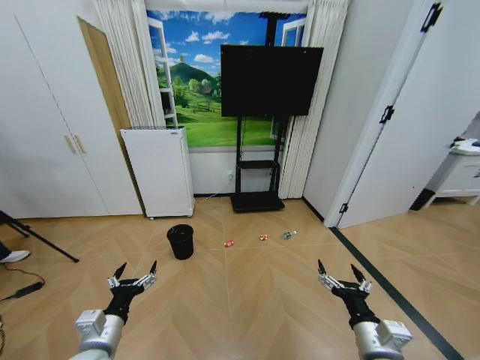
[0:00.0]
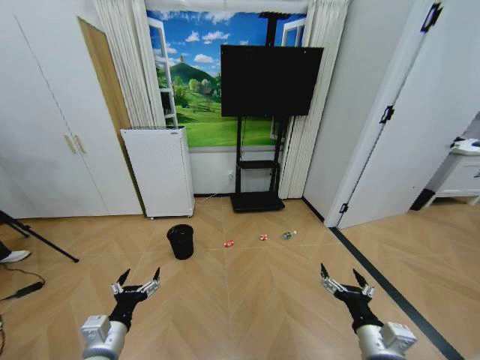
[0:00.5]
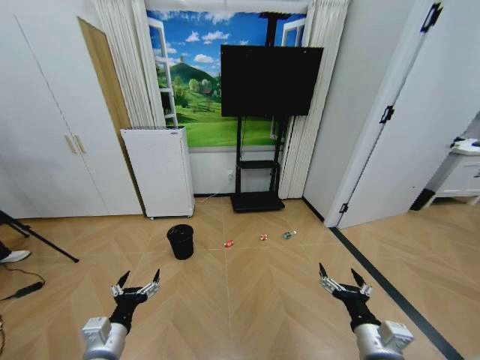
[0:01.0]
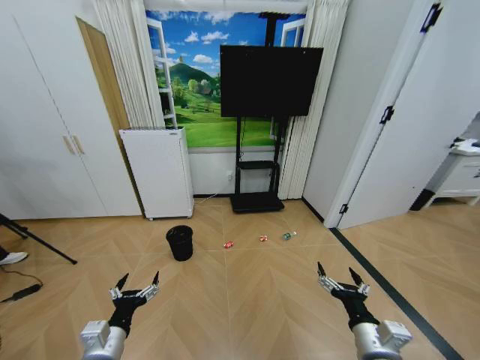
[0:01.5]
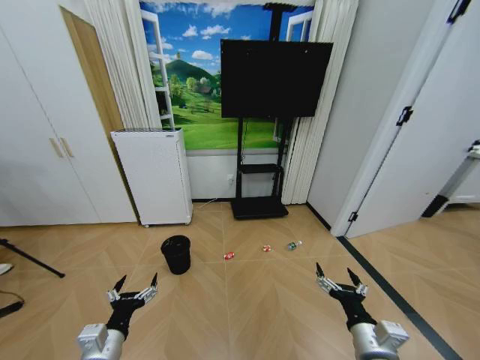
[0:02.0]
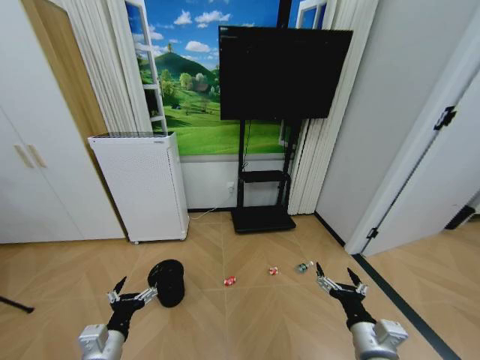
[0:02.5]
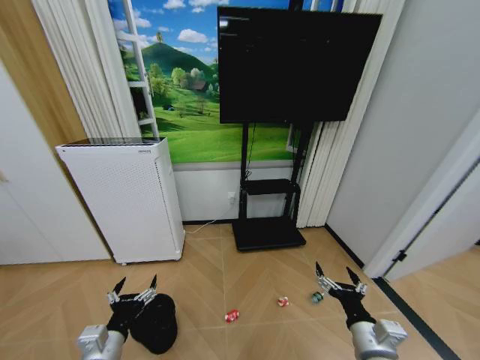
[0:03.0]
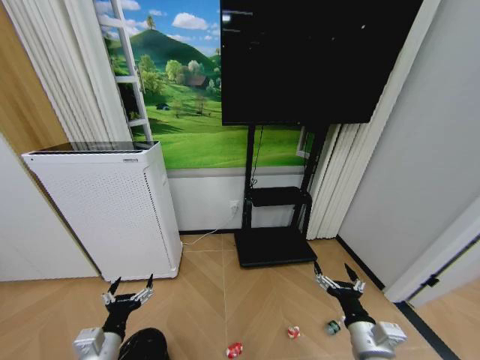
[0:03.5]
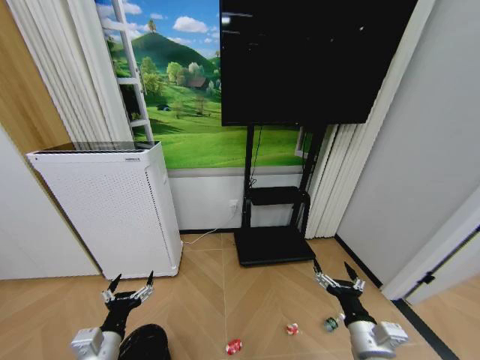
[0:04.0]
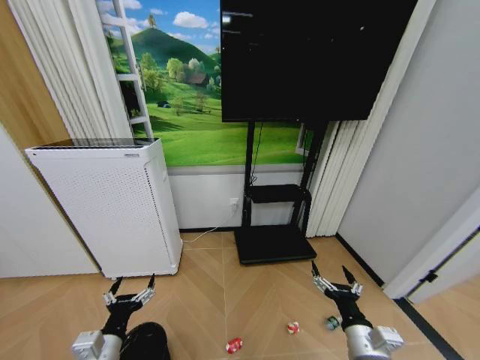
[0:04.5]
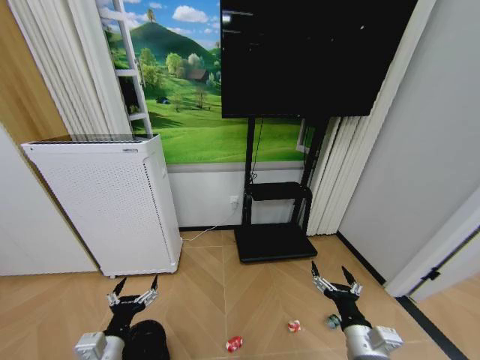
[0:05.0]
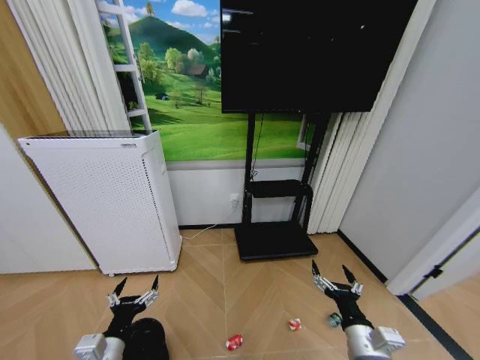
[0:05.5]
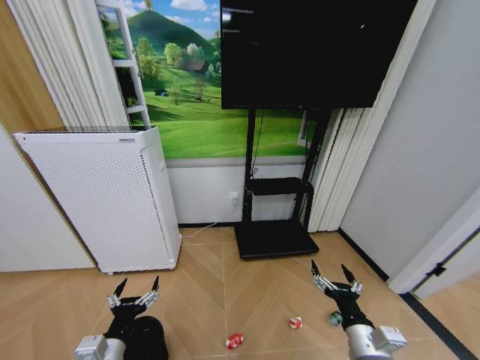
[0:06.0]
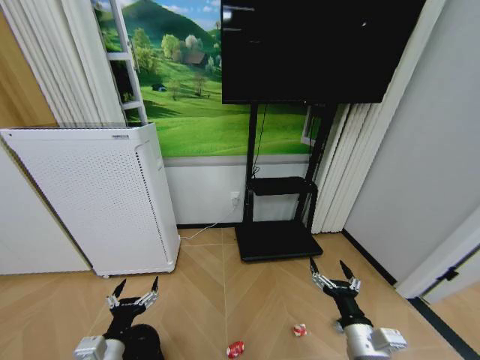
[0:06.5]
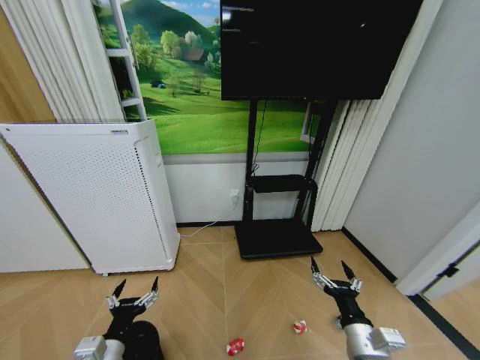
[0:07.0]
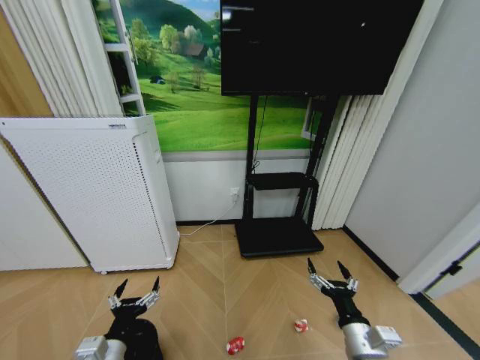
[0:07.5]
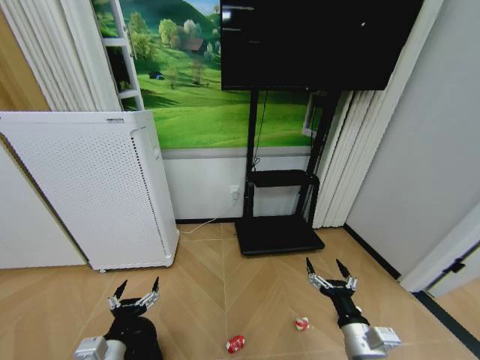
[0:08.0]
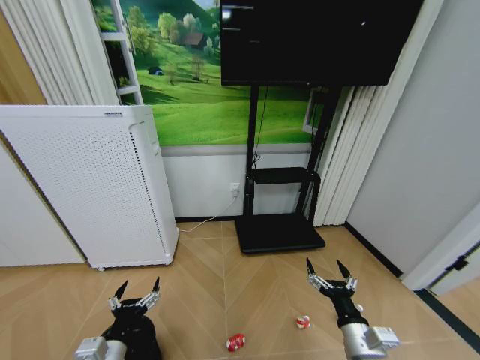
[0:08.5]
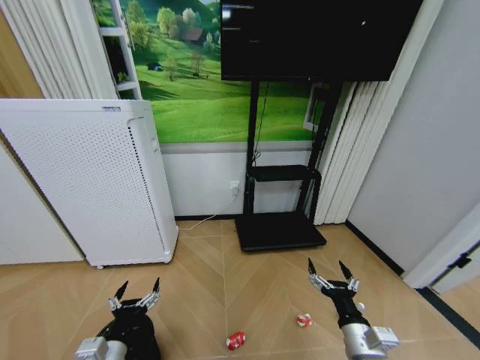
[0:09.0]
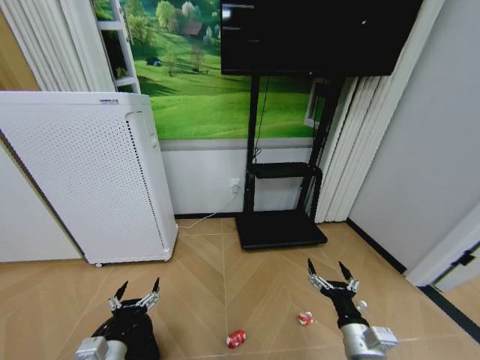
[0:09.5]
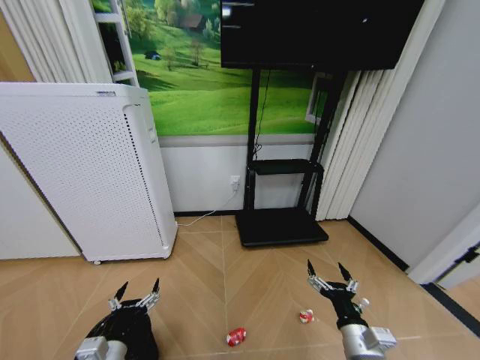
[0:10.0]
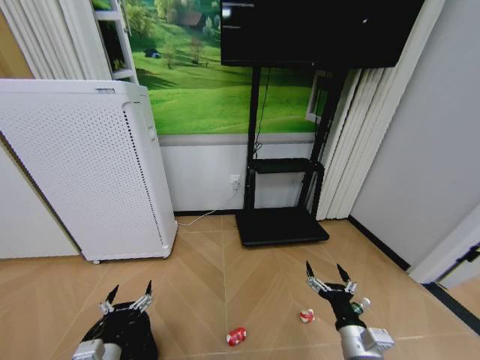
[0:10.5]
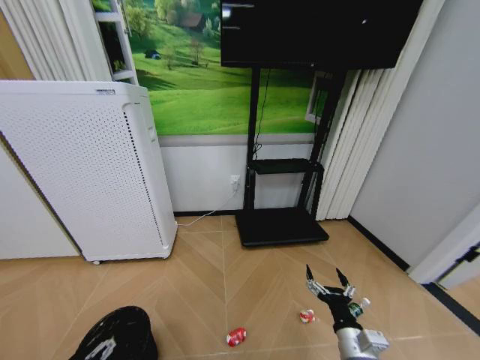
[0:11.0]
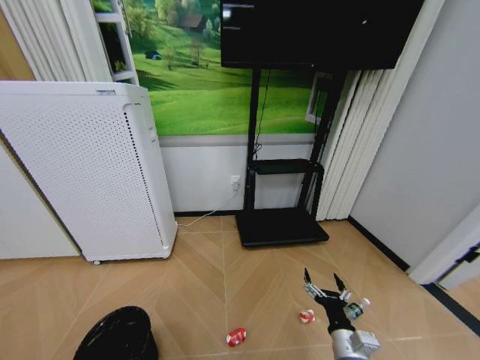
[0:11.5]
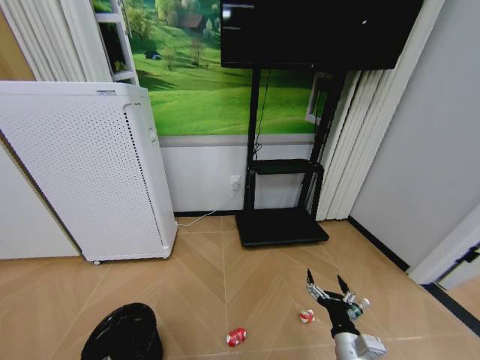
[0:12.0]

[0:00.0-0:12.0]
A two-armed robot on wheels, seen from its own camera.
Task of the whole recording: Pick up the trash bin and place the garbage on the floor into it.
0:04.0 to 0:06.0: The grippers stay close to where they were, moving slightly.
0:08.0 to 0:10.0: Neither gripper changes place.
0:10.0 to 0:12.0: The left gripper is displaced to the left, downward and backward by approximately 15 cm.

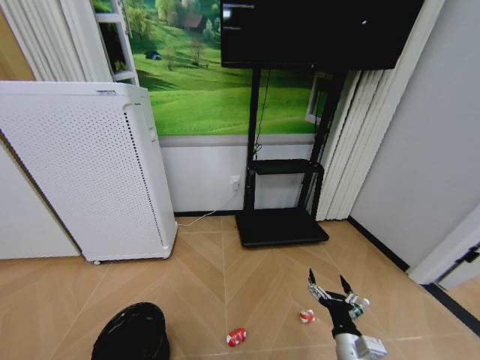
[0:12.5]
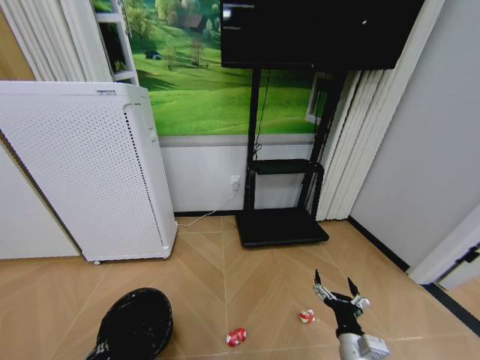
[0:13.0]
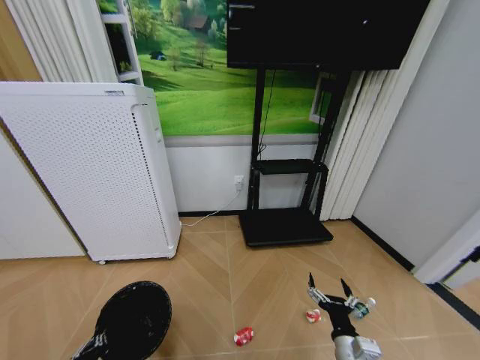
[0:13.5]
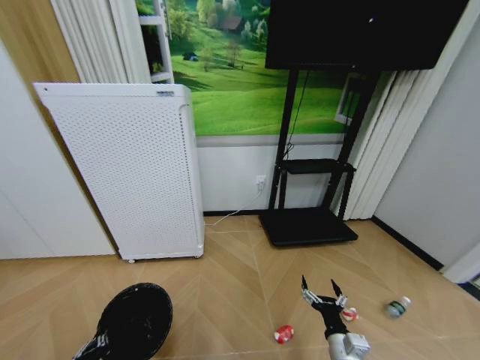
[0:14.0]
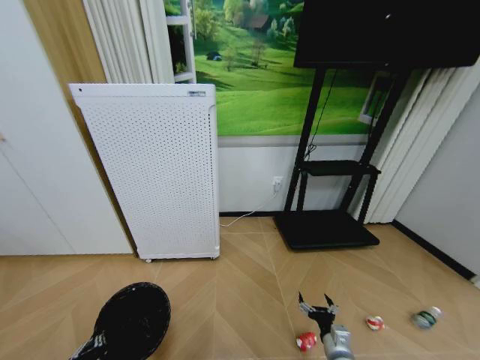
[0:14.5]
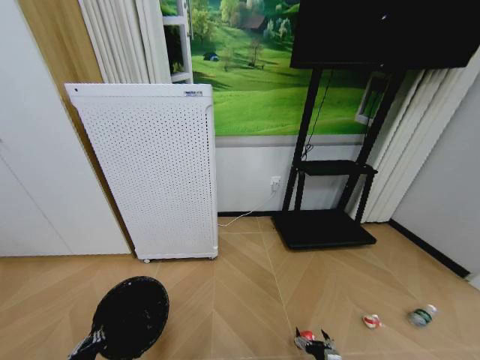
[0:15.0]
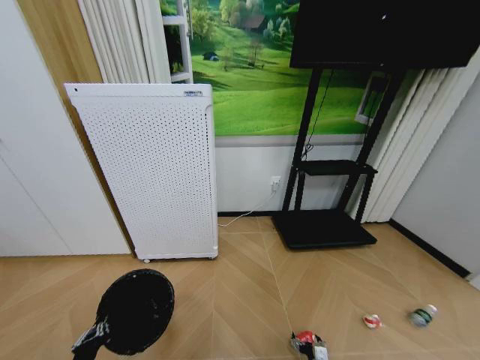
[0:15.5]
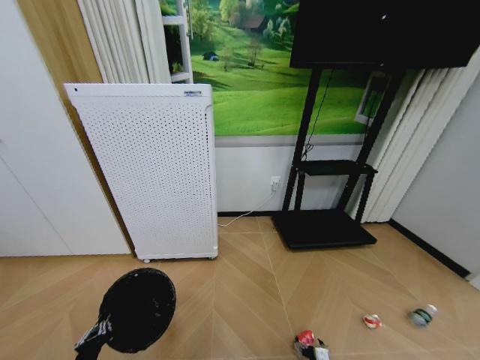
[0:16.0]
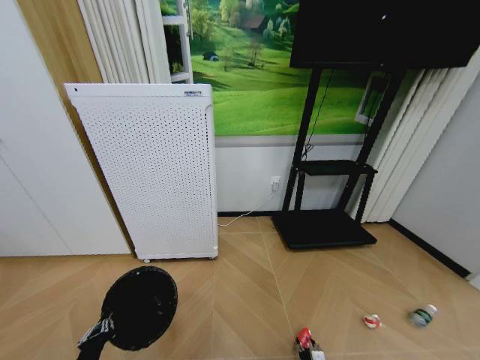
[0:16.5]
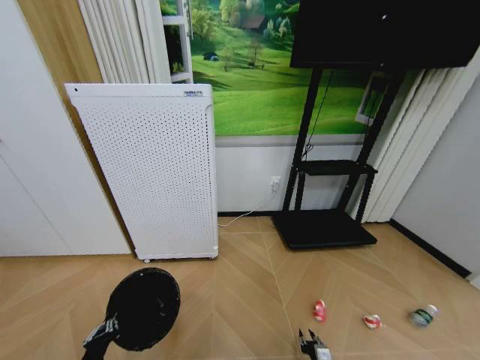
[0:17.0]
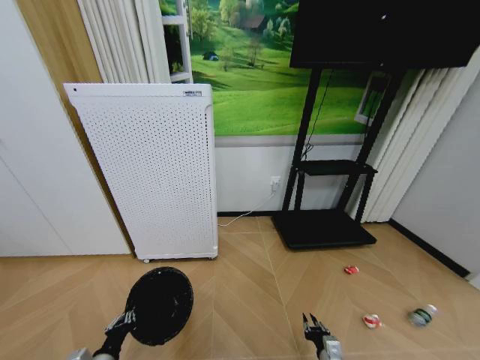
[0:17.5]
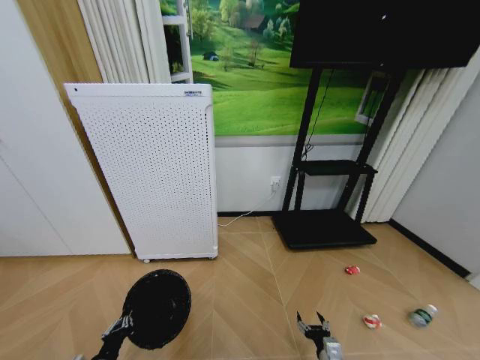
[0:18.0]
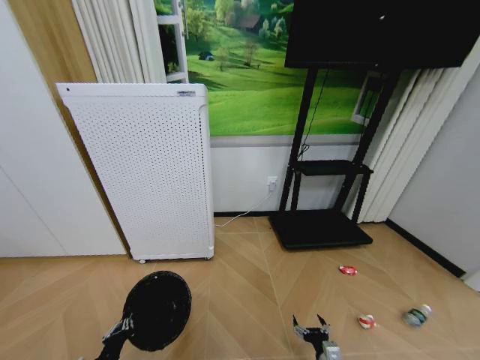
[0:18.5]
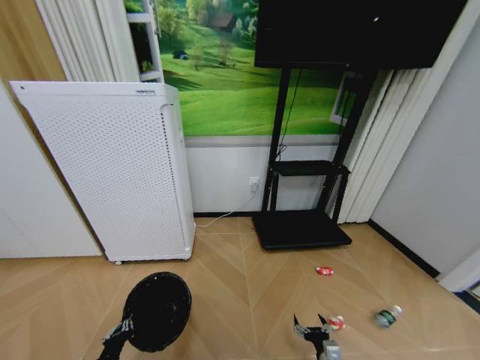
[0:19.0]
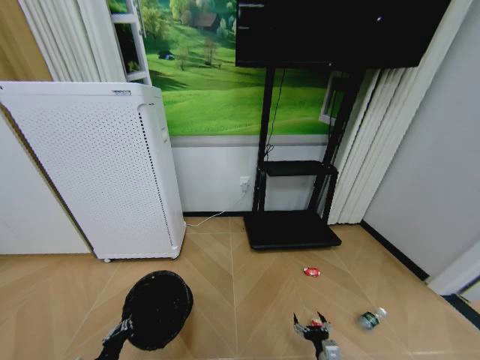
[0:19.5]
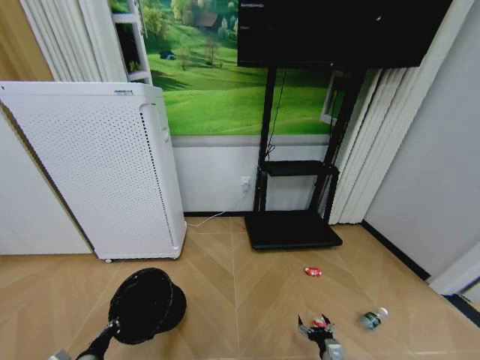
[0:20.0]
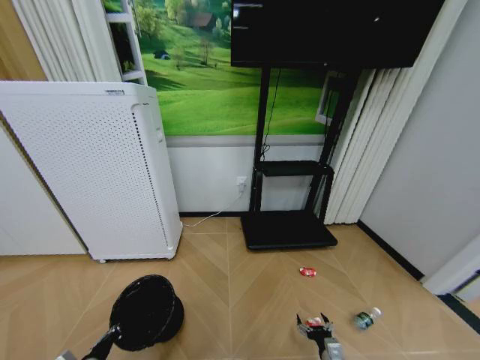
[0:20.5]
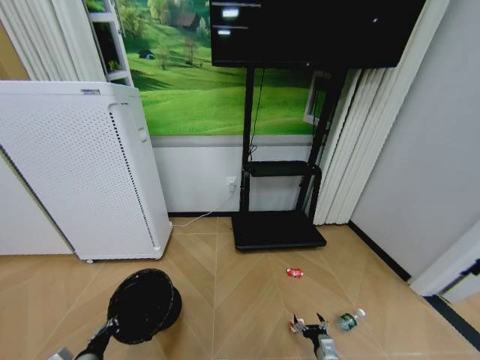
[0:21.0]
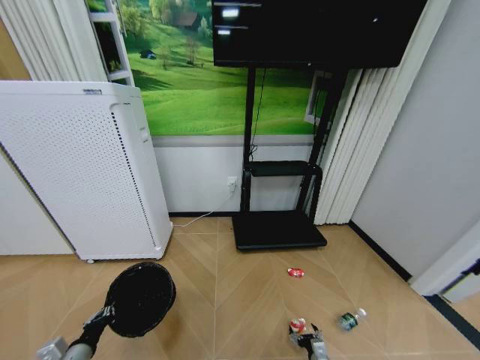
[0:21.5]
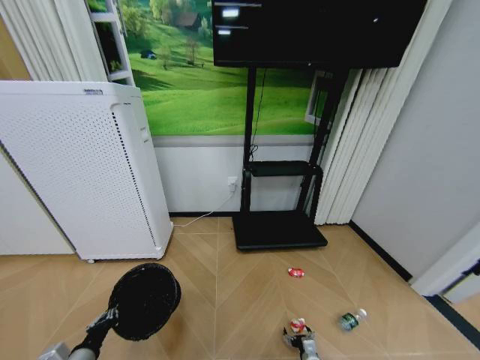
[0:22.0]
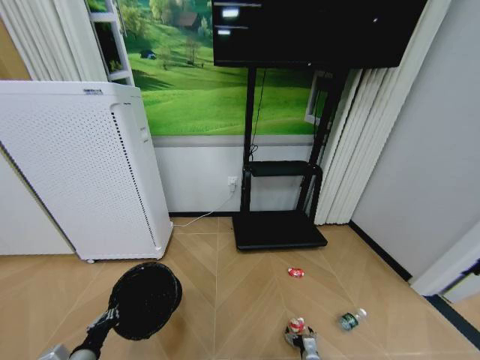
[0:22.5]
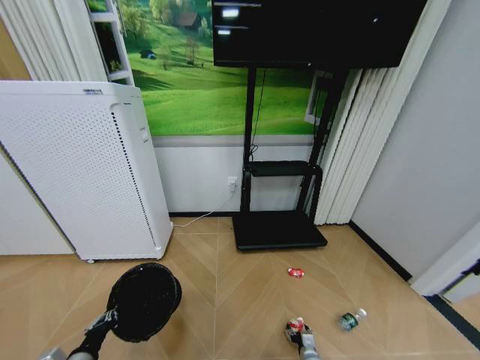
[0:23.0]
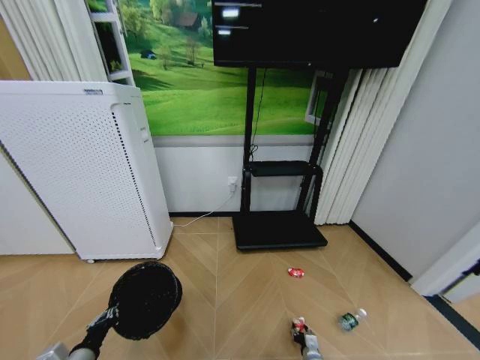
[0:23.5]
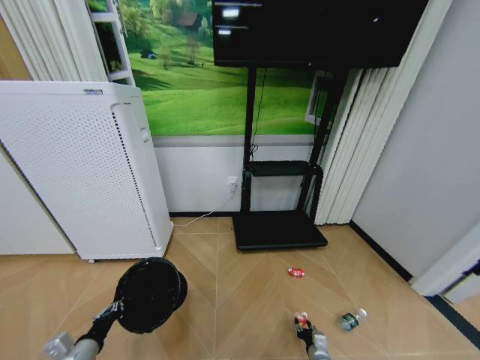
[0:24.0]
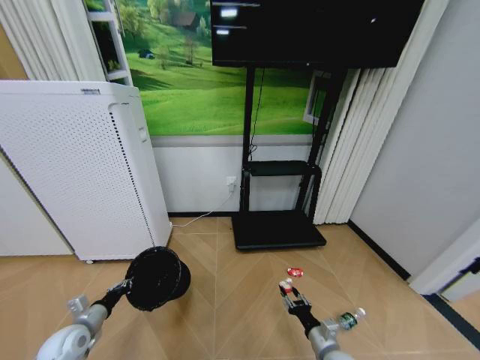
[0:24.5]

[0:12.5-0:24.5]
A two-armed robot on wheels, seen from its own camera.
Task of the whole recording: Pick up the trash bin and place the garbage on the floor into it.
0:12.5 to 0:14.5: The right gripper shifts approximately 10 cm downward.
0:14.5 to 0:16.5: The right gripper heads downward, covering some 15 cm, and closes.
0:16.5 to 0:18.5: The right gripper shifts about 10 cm upward, and opens its fingers.
0:20.5 to 0:22.5: The right gripper heads downward, covering roughly 10 cm.
0:22.5 to 0:24.5: The left gripper heads forward and to the left, covering approximately 15 cm; the right gripper heads upward, covering about 20 cm, and closes up.

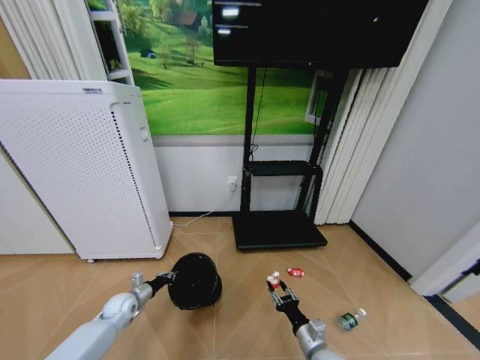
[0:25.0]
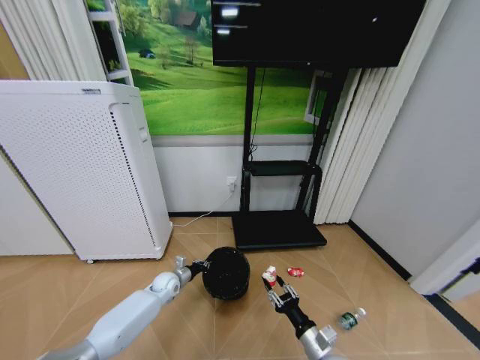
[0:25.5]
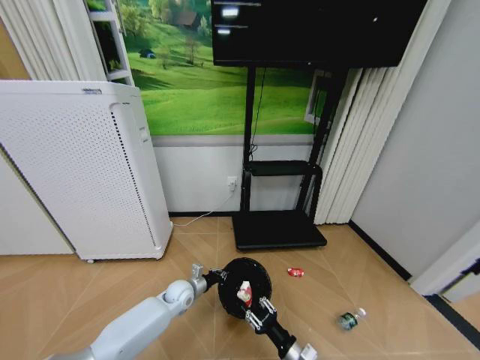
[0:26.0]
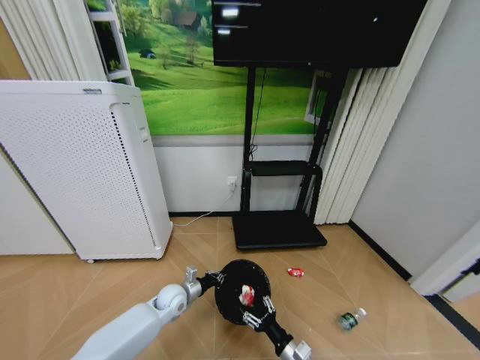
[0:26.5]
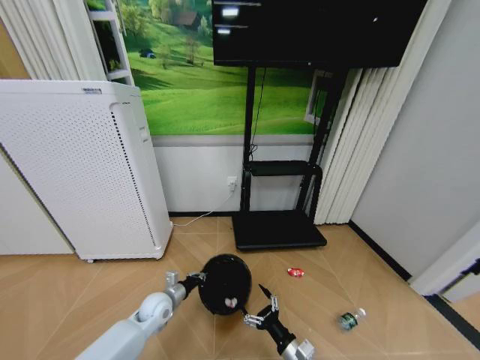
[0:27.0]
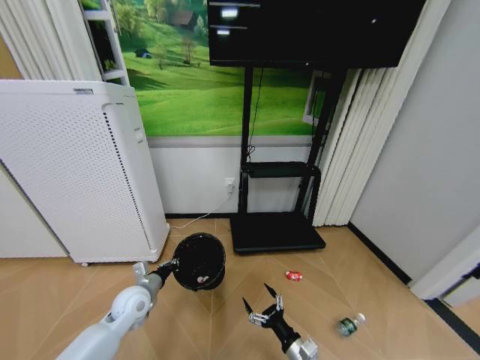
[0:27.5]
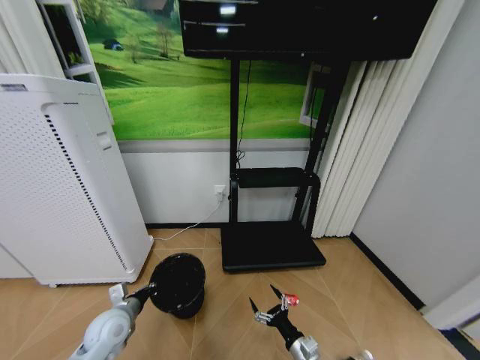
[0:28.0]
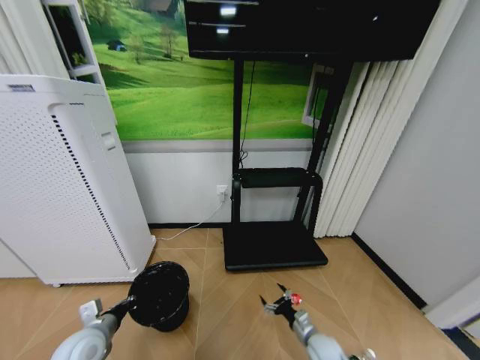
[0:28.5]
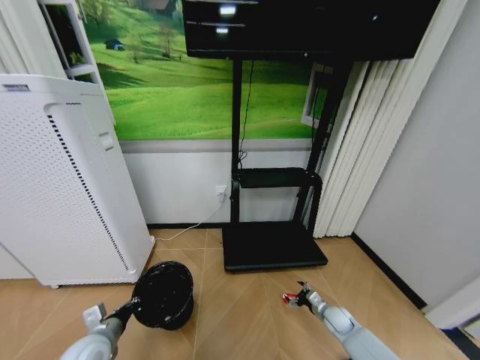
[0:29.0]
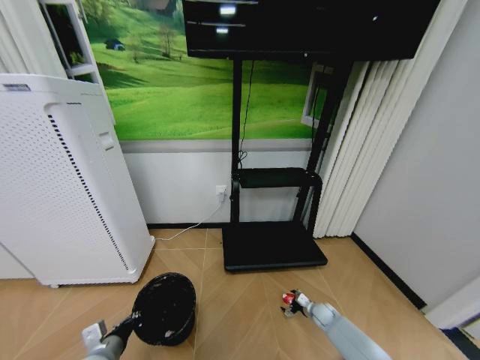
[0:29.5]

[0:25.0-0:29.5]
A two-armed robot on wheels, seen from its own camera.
Task of the whole recording: Pick up the trash bin and place the garbage on the floor into it.
0:25.0 to 0:27.0: The right gripper shifts by approximately 5 cm, and opens. The left gripper travels to the right by approximately 15 cm.
0:27.0 to 0:29.5: The right gripper travels forward, to the right and downward by some 30 cm; the left gripper heads backward and to the left, covering some 20 cm.
